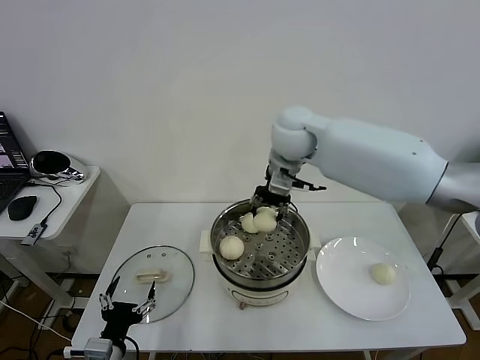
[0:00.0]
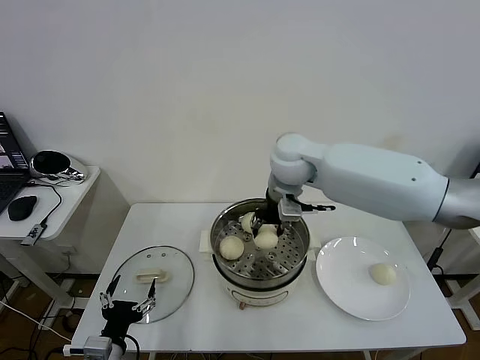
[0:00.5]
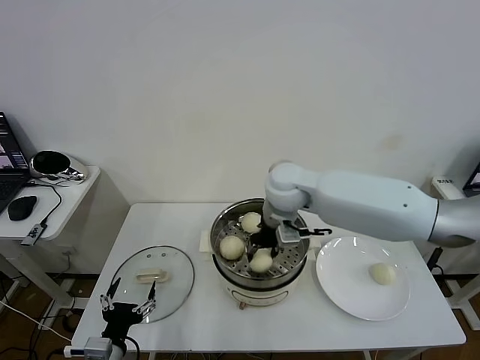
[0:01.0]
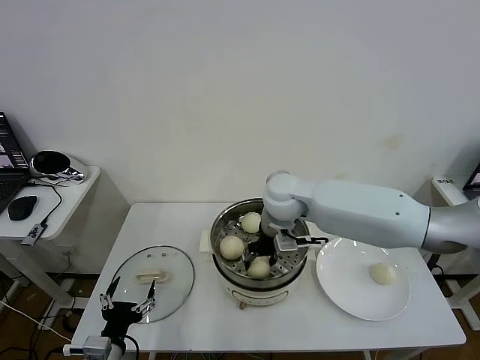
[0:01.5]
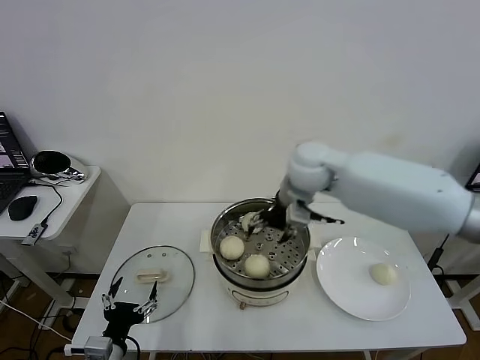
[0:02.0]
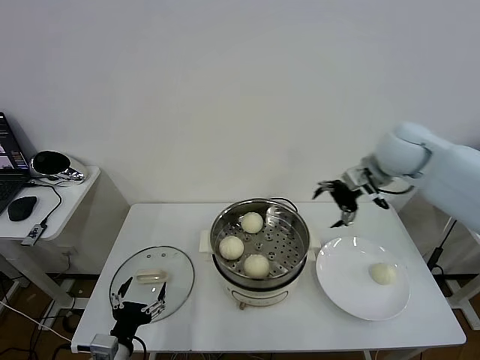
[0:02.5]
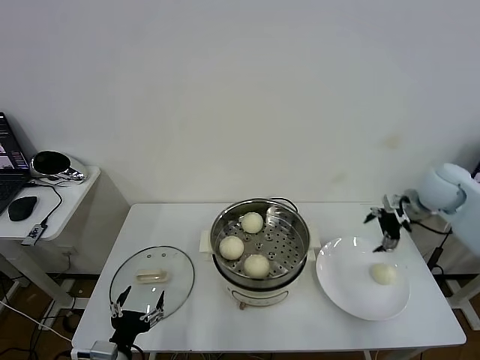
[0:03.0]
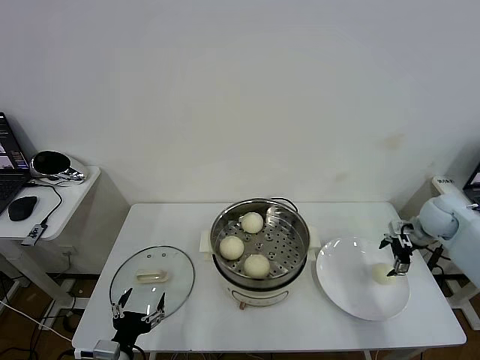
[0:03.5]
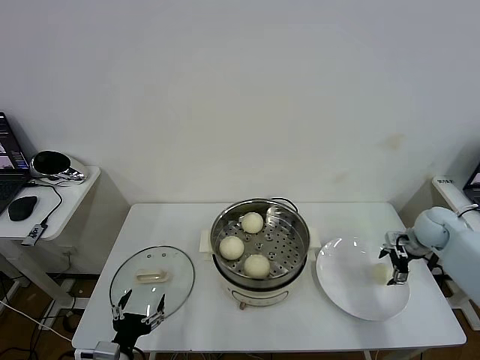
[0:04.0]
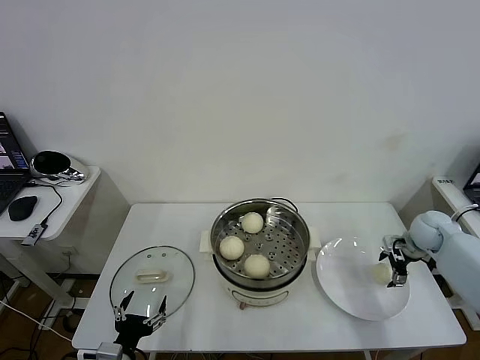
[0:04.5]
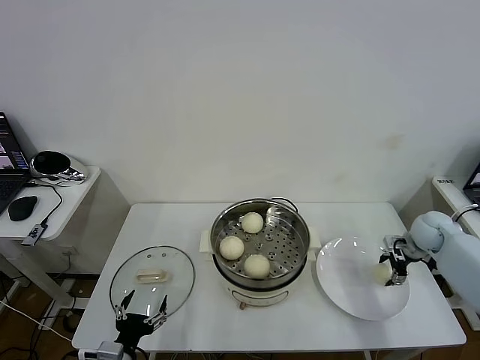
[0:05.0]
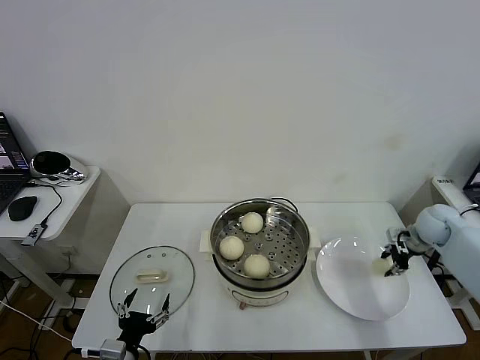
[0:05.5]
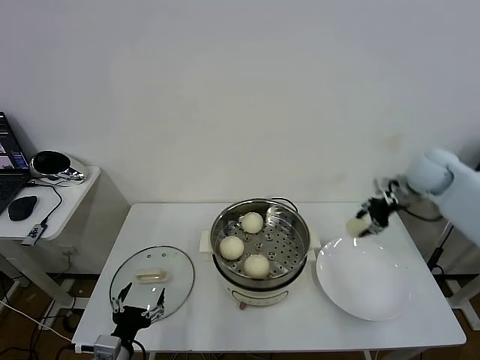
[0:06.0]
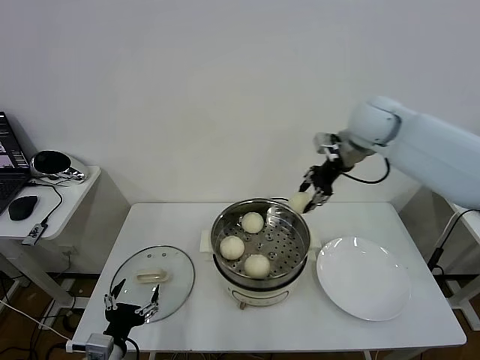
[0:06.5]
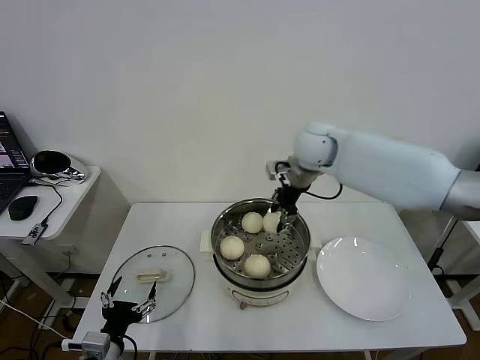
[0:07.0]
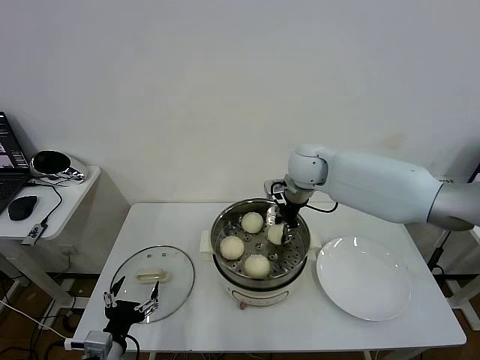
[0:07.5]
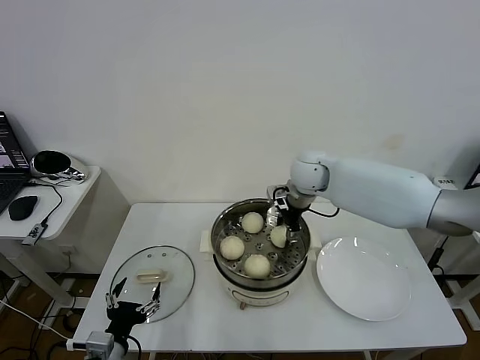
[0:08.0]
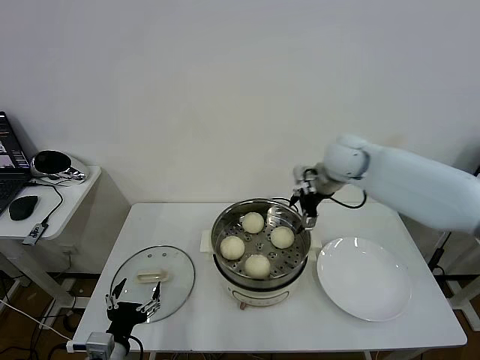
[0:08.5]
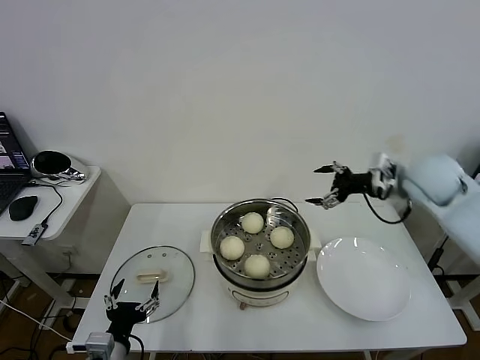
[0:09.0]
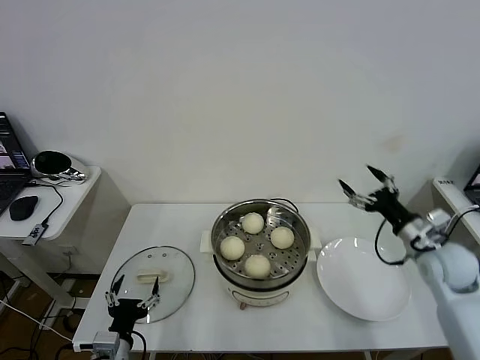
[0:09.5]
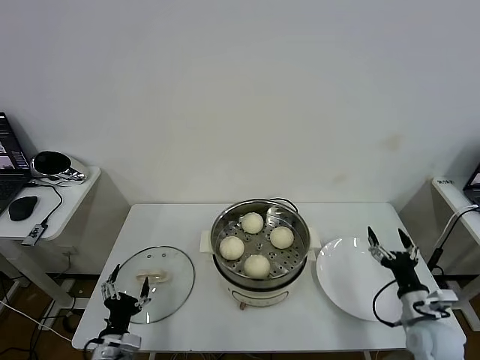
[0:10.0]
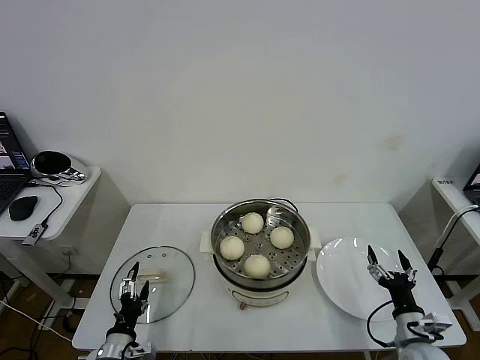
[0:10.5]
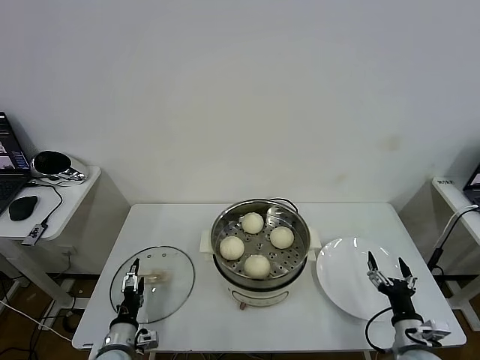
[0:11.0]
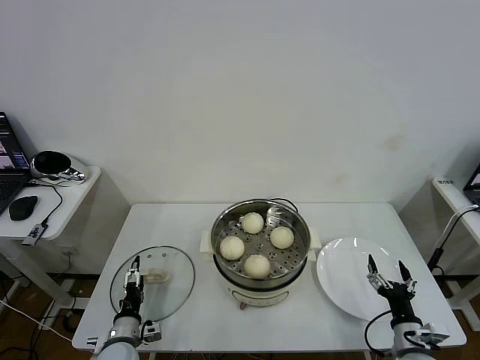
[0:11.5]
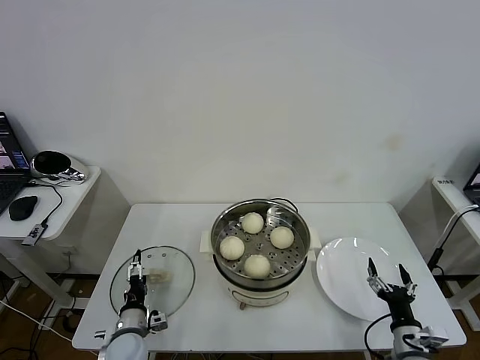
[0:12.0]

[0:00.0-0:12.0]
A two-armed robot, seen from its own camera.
Task of the whole recording: take steamed baozi put them in steamer then cover it.
Step, 2.0 to 5.0 s: Grasp the baozi in the plate with right gripper.
Step, 5.5 to 8.0 s: Place the baozi on the steamer with right gripper.
0.0 to 2.0 s: The right gripper reaches about 10 cm downward, then returns, and opens up.
2.0 to 4.0 s: The right gripper moves to the right and downward, approximately 40 cm.
4.0 to 6.0 s: The right gripper moves upward and to the left, some 15 cm, and closes.
6.0 to 8.0 s: The right gripper shifts roughly 25 cm to the left, and opens up.
8.0 to 10.0 s: The left gripper is displaced downward by about 5 cm; the right gripper is displaced backward, to the right and downward by roughly 40 cm, and opens up.
10.0 to 12.0 s: The left gripper is displaced forward and downward by roughly 10 cm. The right gripper travels backward and downward by some 10 cm.

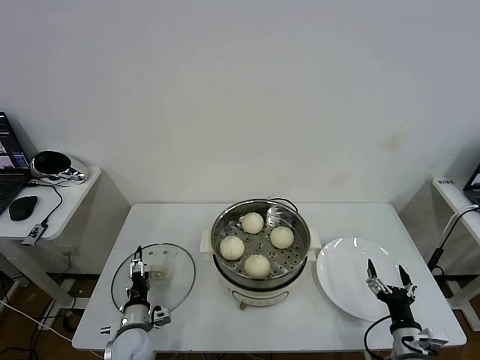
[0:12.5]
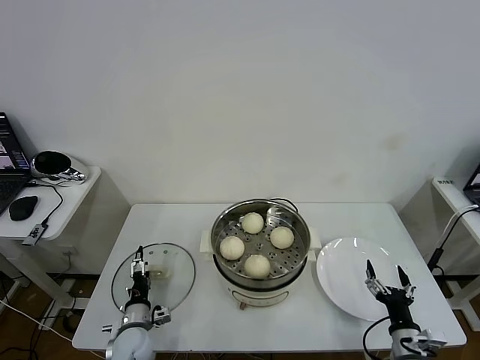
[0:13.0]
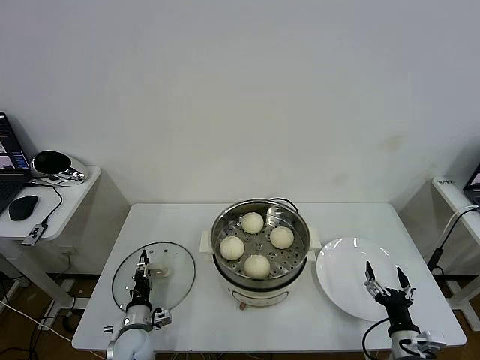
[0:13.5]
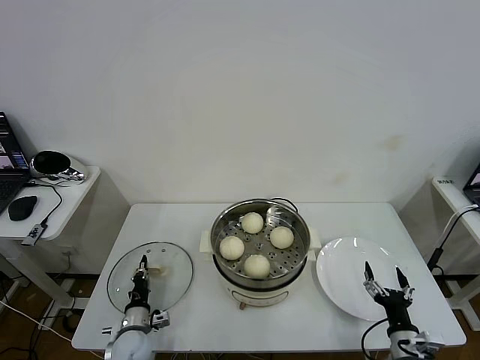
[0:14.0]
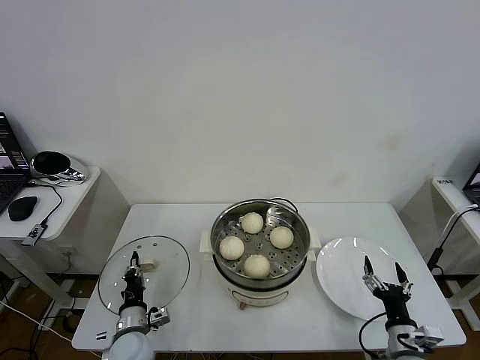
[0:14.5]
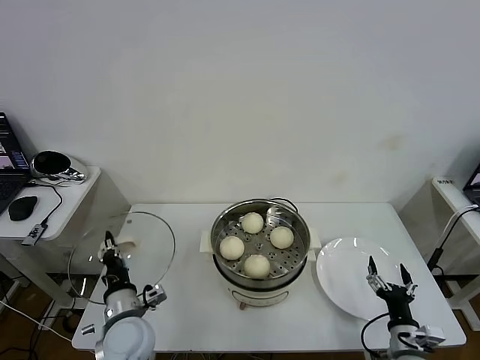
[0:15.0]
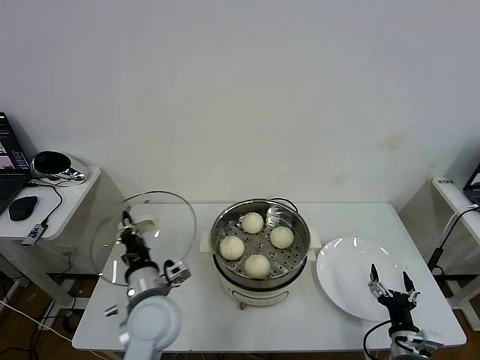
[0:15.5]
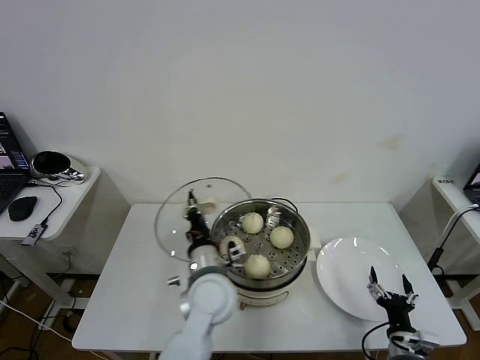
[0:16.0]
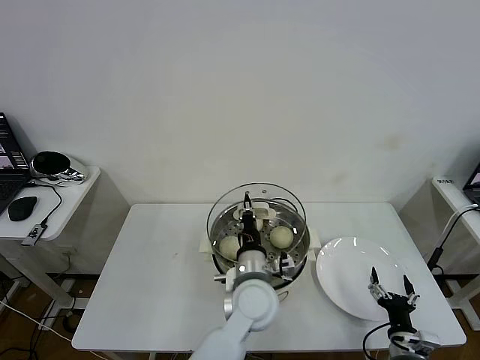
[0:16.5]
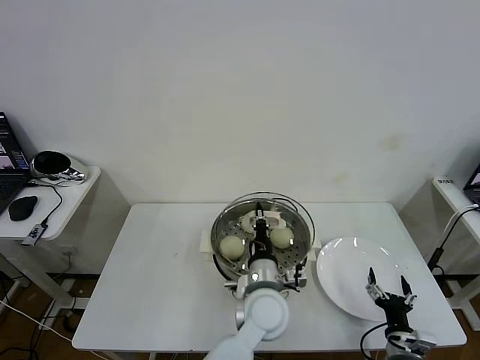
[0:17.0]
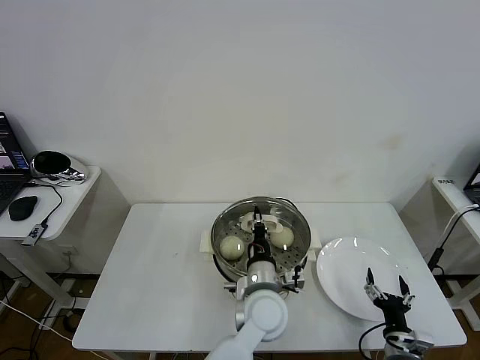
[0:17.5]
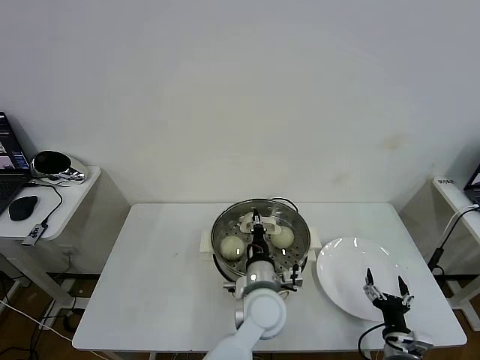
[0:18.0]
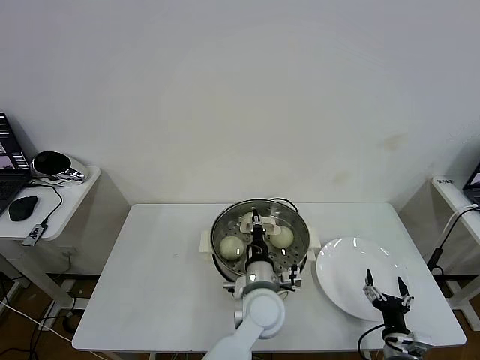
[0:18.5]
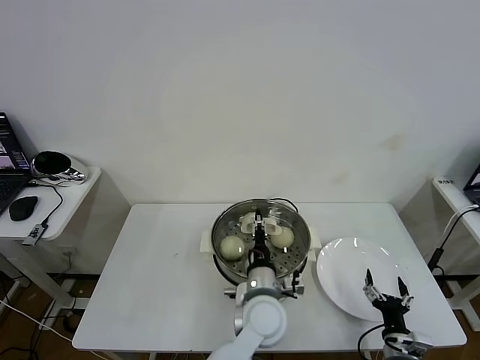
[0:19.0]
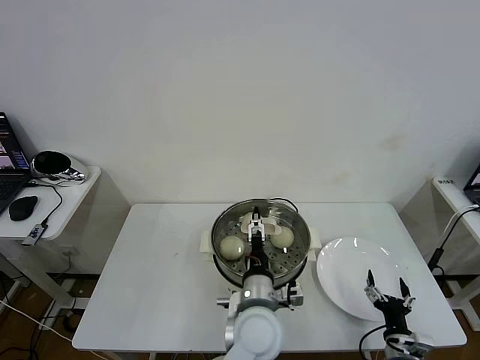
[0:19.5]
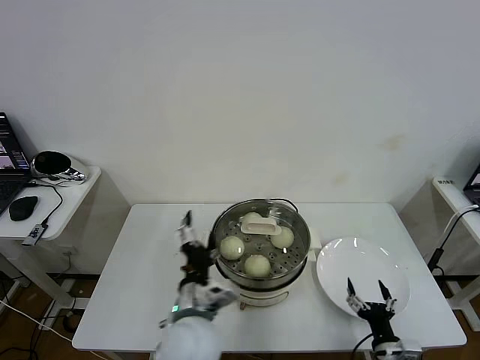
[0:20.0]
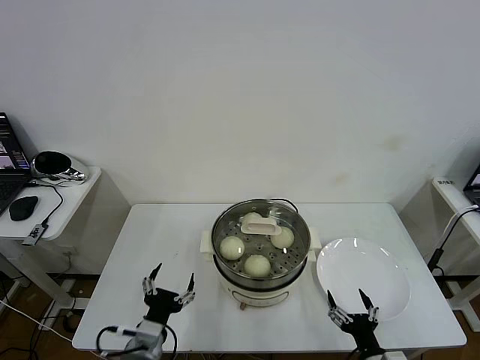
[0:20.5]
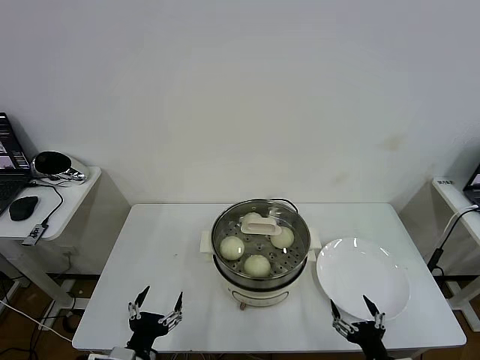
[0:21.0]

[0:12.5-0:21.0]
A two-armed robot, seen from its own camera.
Task of the whole recording: take steamed baozi put them in steamer then cover it.
Step, 14.5 to 19.0 s: Place the pot lid on the steamer with left gripper.
12.5 to 14.5 s: The left gripper closes its fingers.
14.5 to 16.5 s: The left gripper moves to the right and upward, about 35 cm.
16.5 to 19.0 s: The grippers move only a little.
19.0 to 21.0 s: The left gripper moves to the left and backward, roughly 30 cm, and opens its fingers, while the right gripper moves backward and upward, some 10 cm.

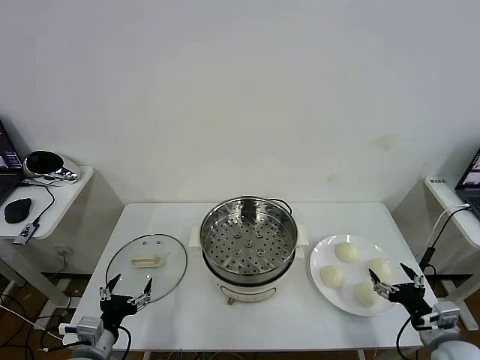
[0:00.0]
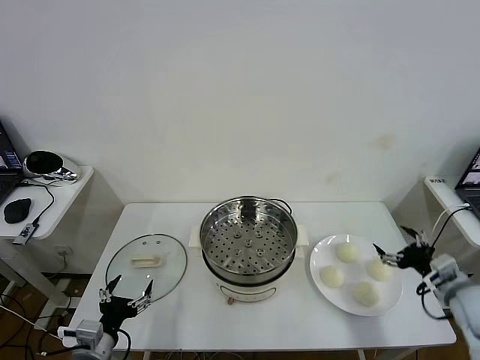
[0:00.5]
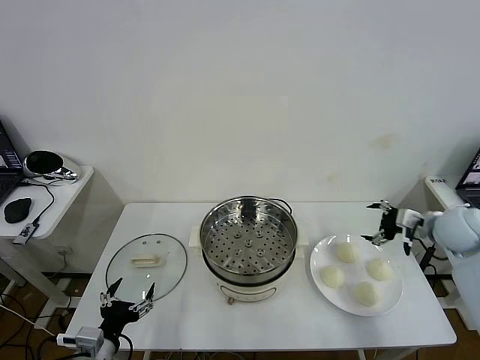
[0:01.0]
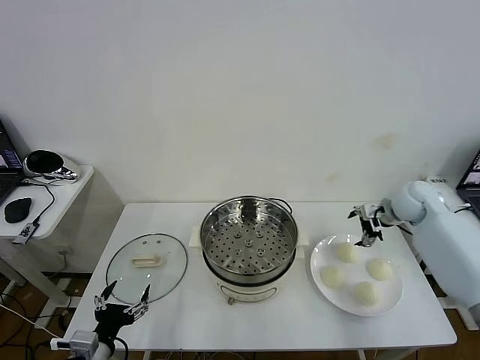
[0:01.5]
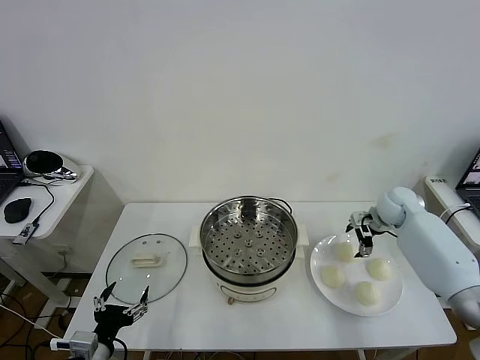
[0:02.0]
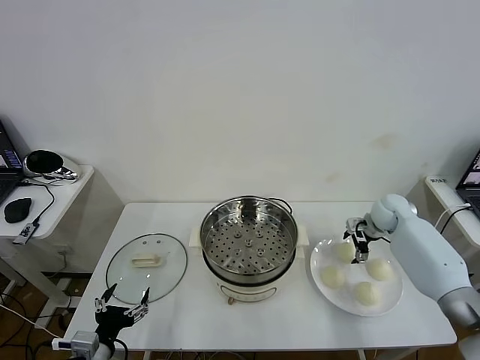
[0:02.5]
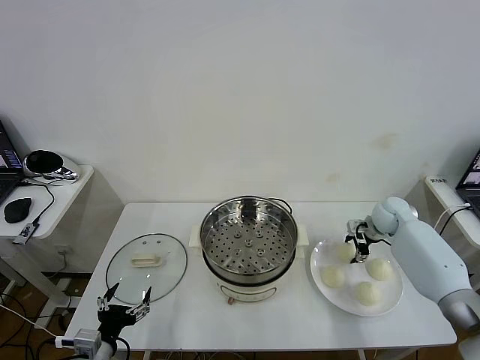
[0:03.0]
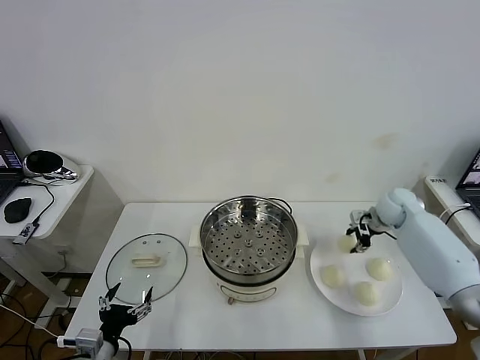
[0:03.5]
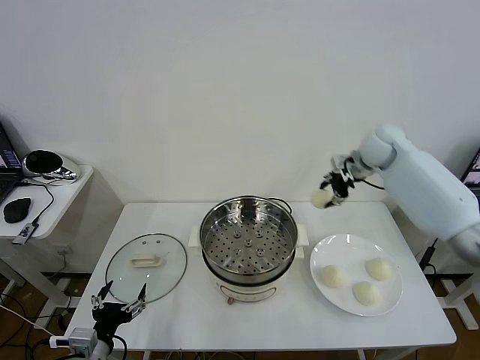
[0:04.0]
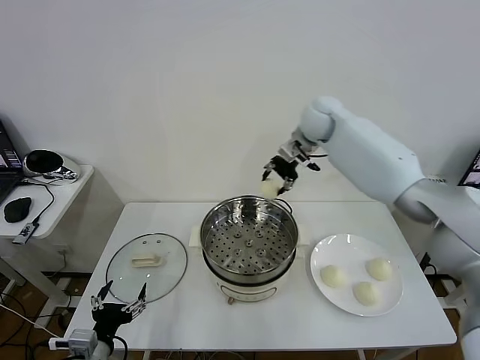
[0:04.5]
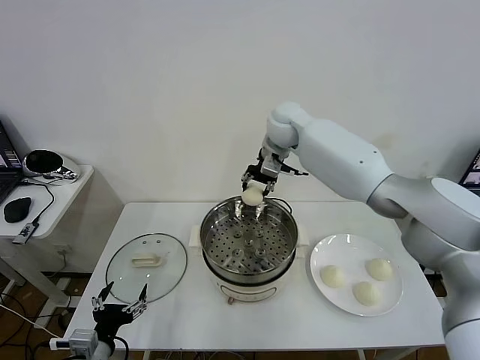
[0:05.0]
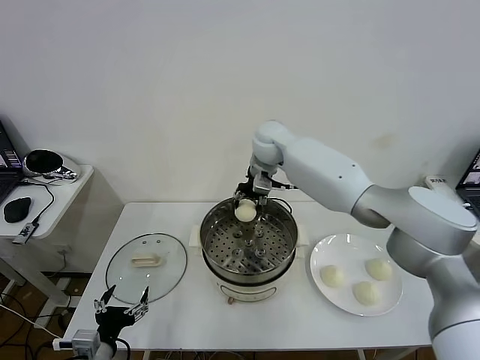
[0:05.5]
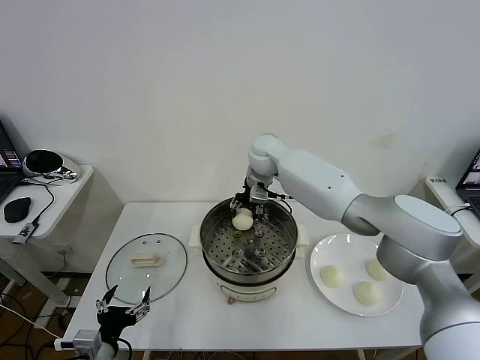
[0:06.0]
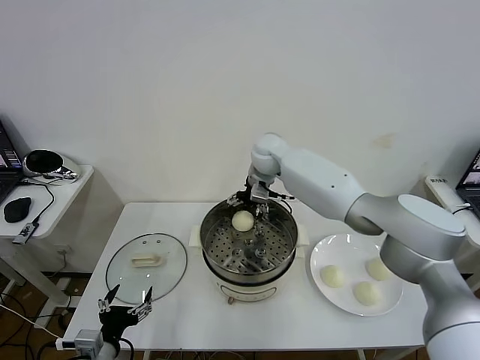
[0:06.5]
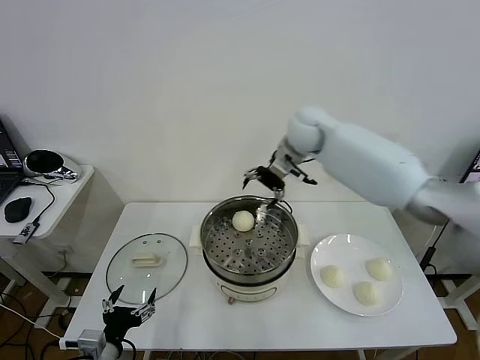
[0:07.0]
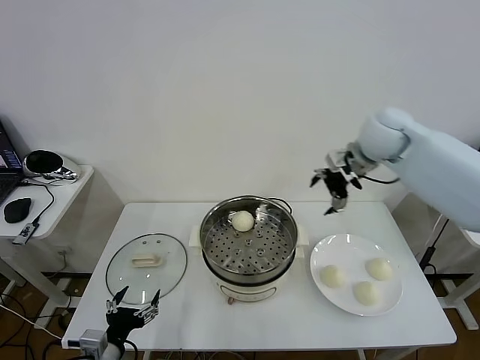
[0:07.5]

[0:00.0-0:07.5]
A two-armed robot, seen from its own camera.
Task of the whole recording: take steamed baozi put them in steamer then cover it.
Step, 0.0 to 3.0 s: Grasp the baozi in the plate with right gripper.
Step, 3.5 to 6.5 s: Place the baozi on the steamer with right gripper.
2.0 to 4.0 s: The right gripper goes some 20 cm upward and to the left, and closes its fingers.
4.0 to 5.5 s: The right gripper heads to the left, covering approximately 20 cm.
5.5 to 7.5 s: The right gripper moves to the right, roughly 25 cm, and opens its fingers.
